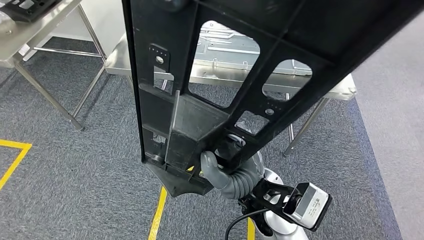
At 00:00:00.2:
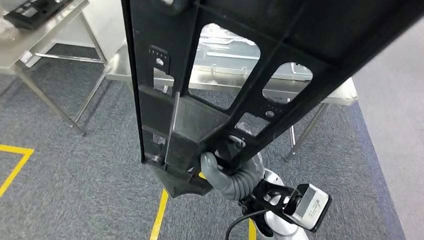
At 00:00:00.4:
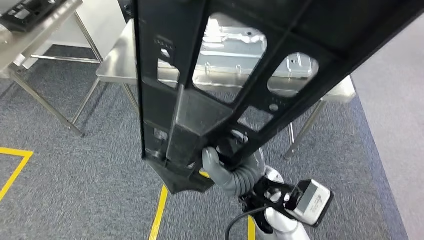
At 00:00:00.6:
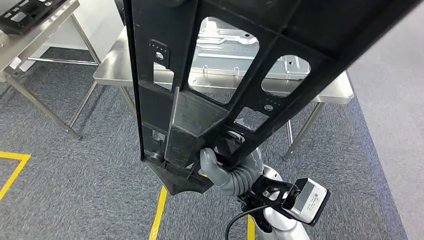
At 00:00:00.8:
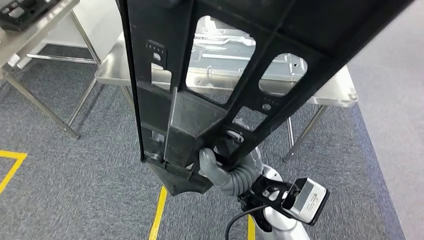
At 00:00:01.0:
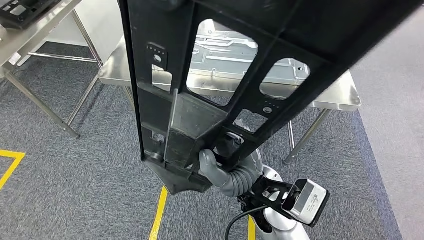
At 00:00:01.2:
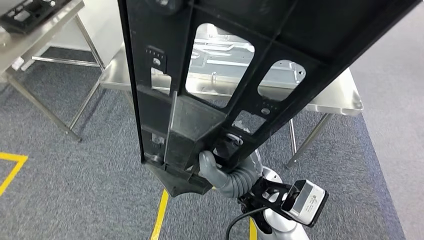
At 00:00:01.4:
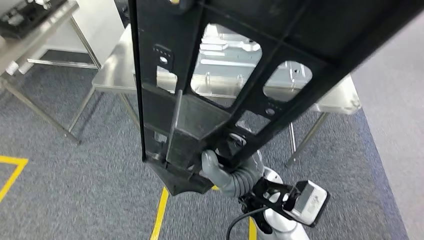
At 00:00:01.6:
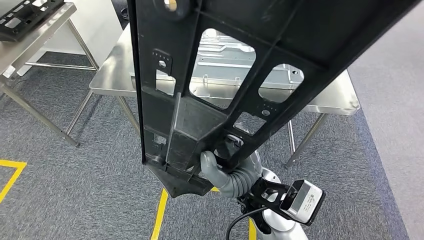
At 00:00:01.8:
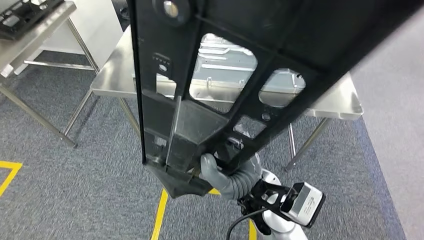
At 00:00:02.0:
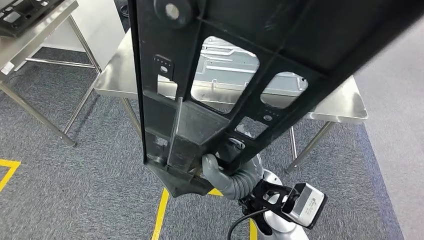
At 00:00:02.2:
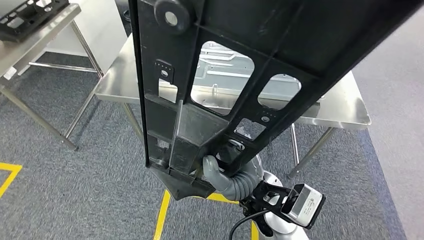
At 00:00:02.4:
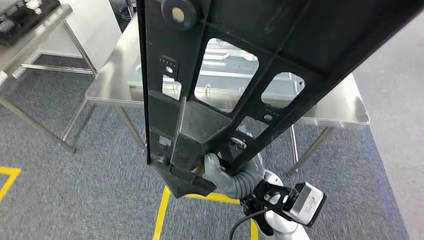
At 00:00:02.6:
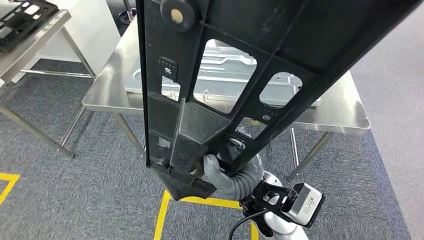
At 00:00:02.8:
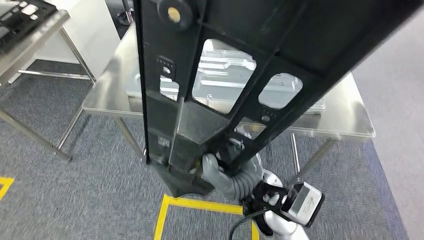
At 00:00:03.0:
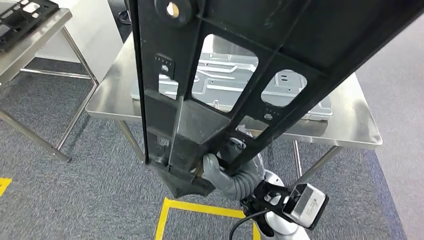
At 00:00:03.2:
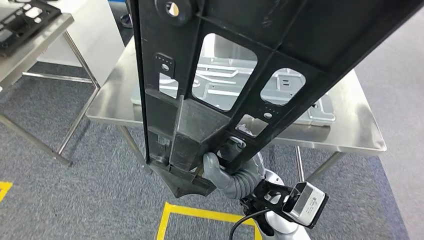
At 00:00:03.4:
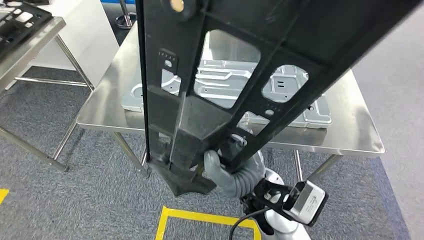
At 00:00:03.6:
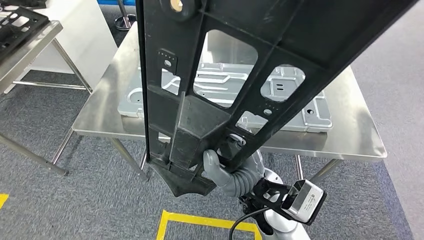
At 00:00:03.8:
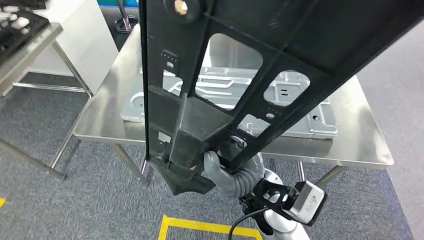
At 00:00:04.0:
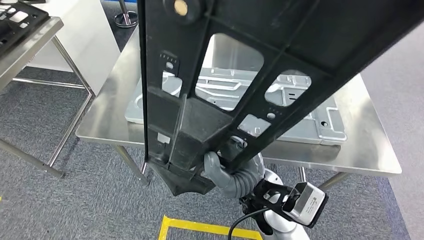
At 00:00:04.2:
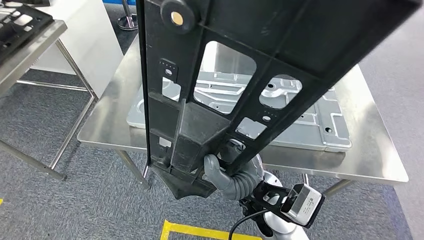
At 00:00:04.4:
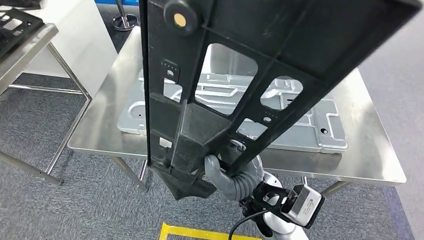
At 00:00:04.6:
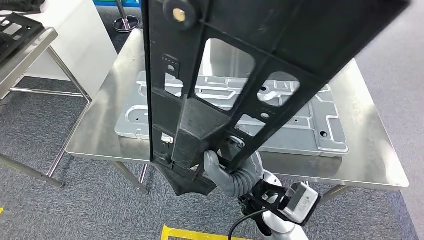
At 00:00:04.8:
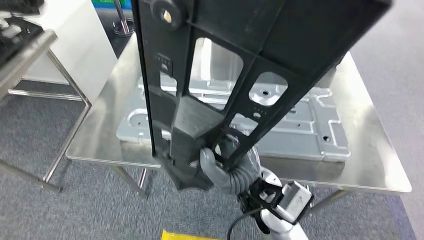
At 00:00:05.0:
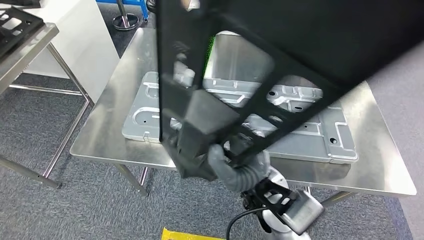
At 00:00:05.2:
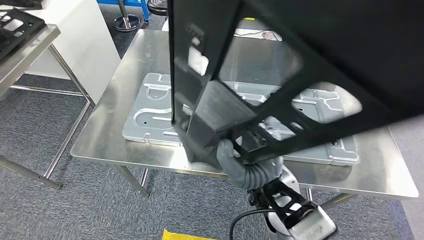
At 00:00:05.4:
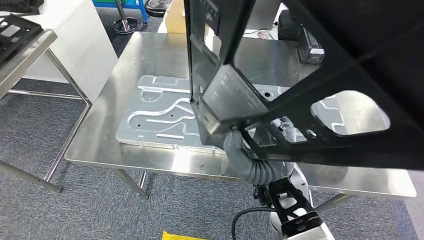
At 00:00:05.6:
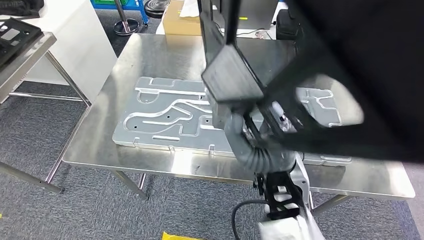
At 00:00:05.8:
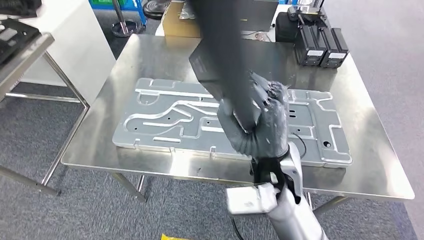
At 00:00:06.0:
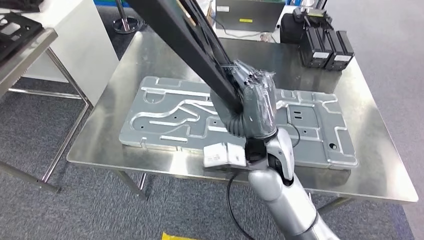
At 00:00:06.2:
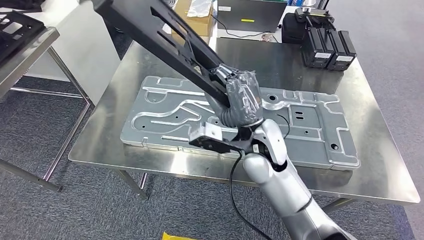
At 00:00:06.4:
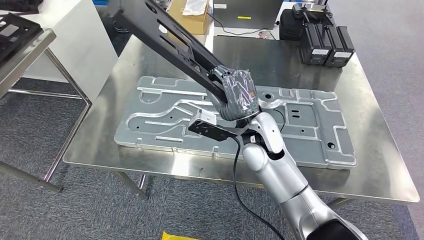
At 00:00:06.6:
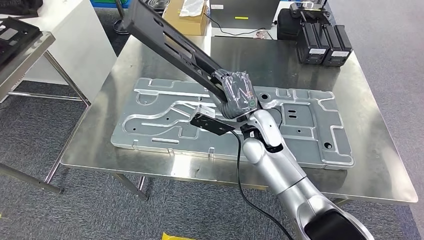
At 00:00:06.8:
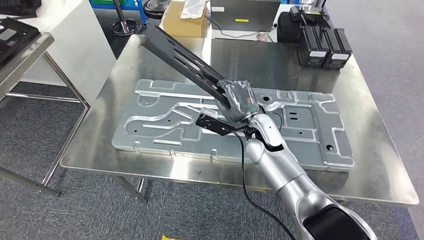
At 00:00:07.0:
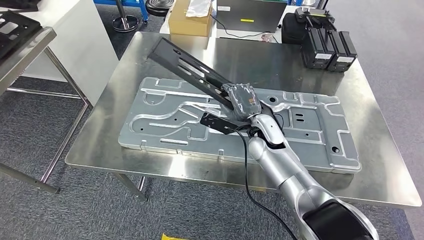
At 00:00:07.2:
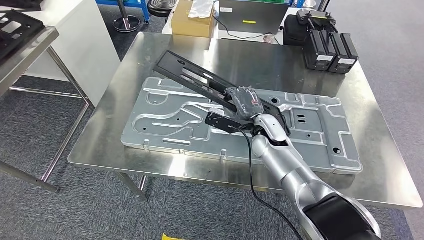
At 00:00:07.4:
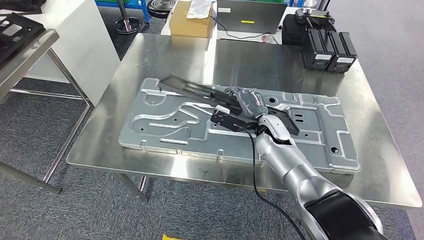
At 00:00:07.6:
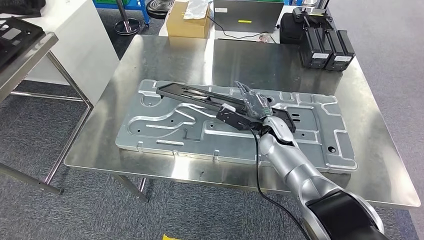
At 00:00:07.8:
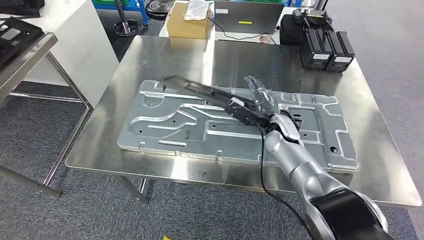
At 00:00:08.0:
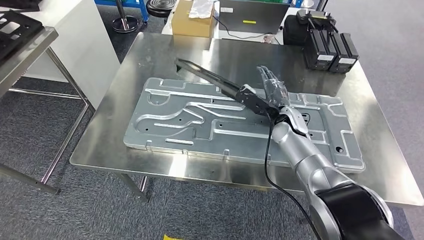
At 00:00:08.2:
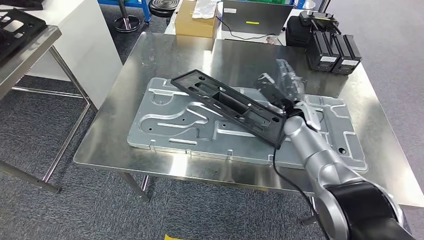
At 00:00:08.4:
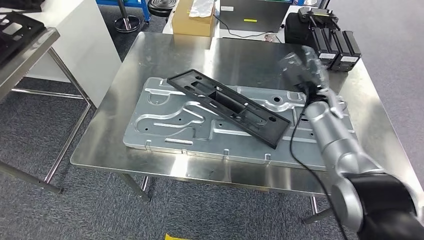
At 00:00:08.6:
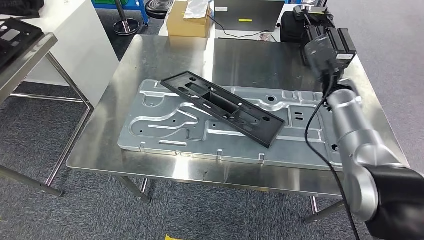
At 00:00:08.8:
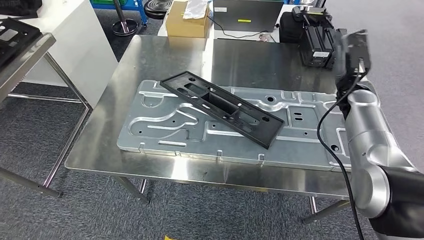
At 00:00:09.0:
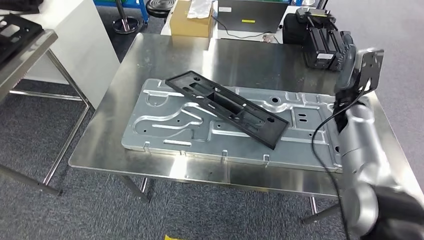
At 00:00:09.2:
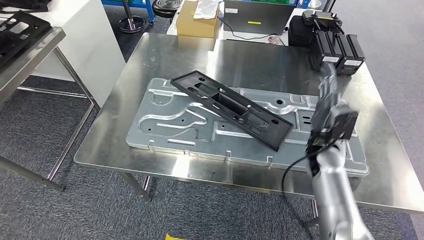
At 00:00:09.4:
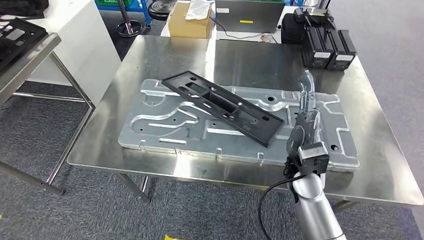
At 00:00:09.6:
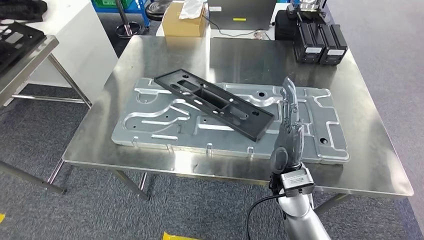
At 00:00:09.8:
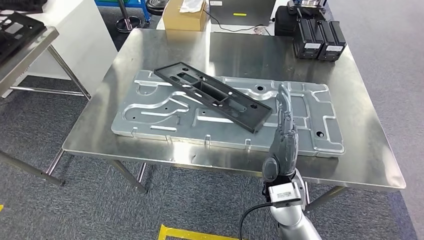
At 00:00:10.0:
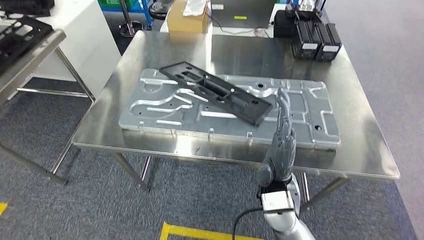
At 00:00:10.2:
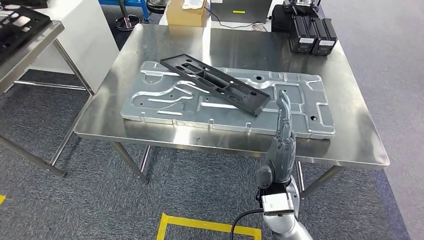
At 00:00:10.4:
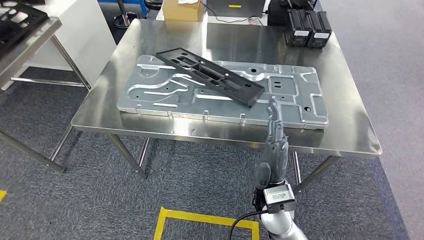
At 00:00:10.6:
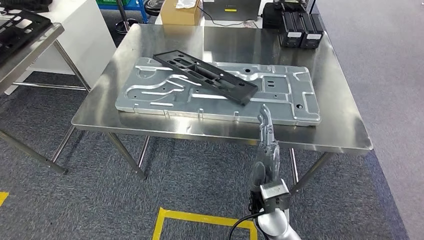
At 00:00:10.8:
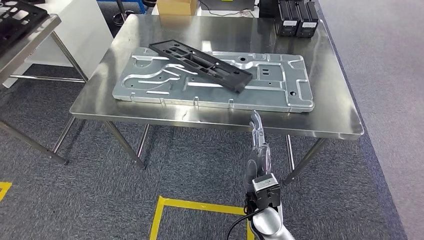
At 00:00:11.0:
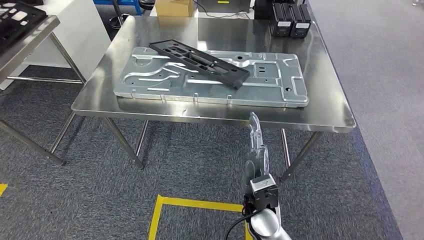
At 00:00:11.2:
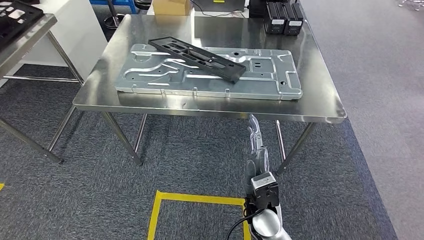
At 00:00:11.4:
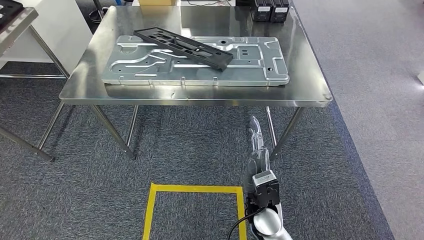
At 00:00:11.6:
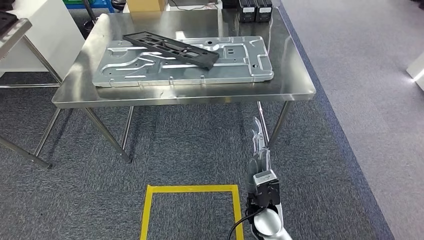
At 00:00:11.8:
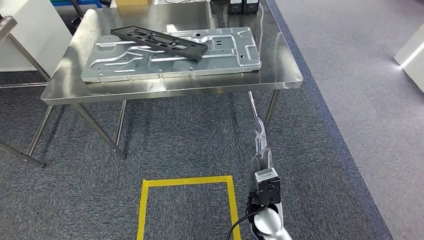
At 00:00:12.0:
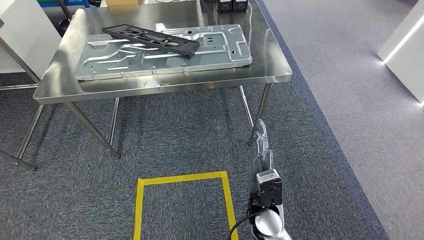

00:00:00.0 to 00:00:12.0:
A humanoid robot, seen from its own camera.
Step, 00:00:00.0 to 00:00:04.2: Move the large material to the workbench.
Step, 00:00:04.6 to 00:00:10.0: Insert the large material into the corresponding slot on the workbench.

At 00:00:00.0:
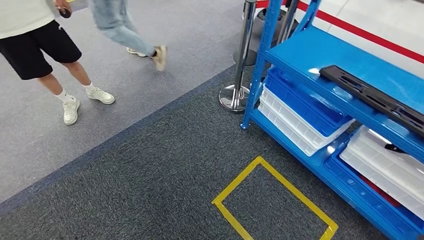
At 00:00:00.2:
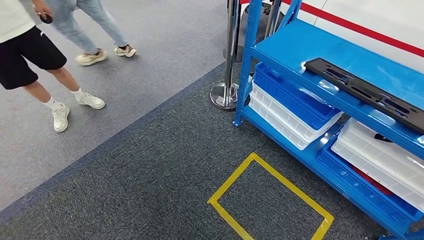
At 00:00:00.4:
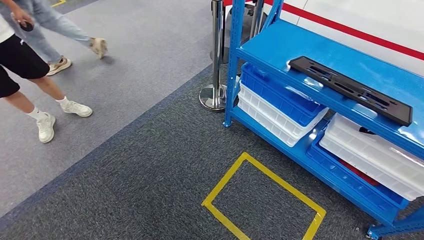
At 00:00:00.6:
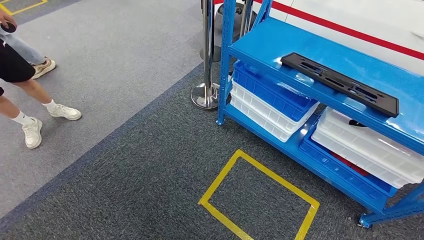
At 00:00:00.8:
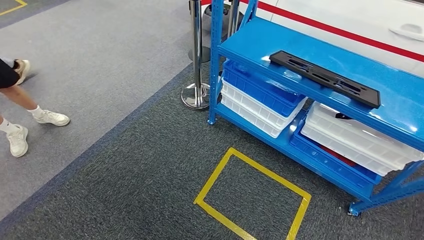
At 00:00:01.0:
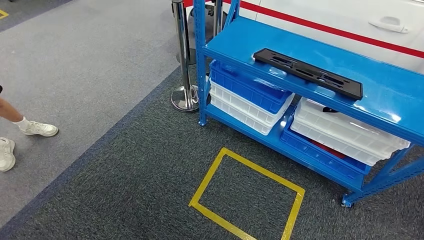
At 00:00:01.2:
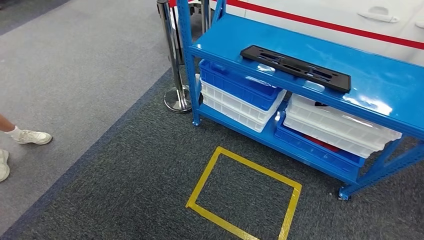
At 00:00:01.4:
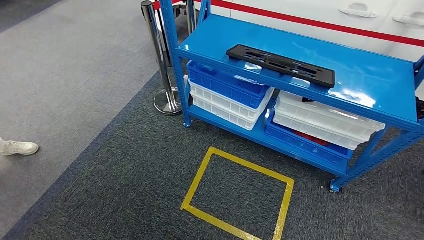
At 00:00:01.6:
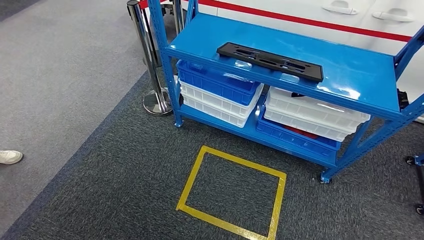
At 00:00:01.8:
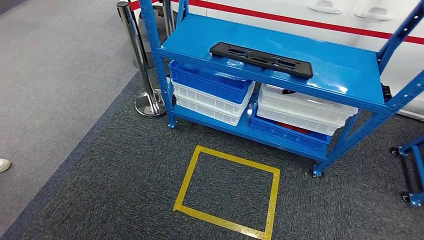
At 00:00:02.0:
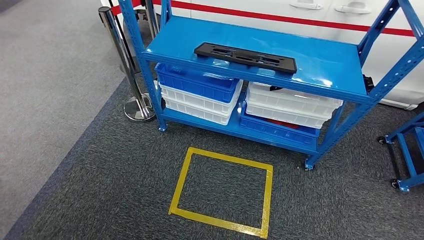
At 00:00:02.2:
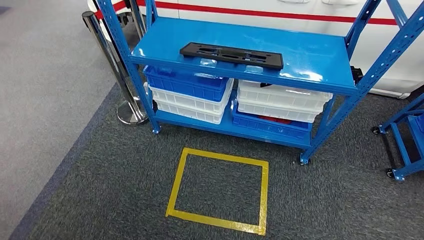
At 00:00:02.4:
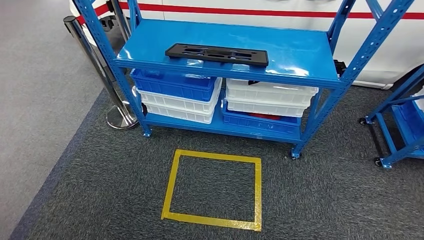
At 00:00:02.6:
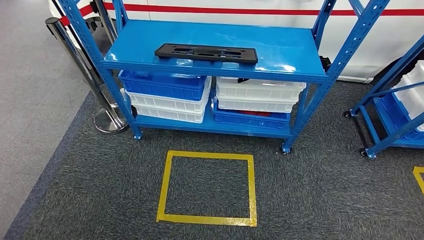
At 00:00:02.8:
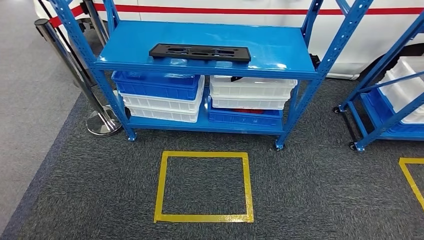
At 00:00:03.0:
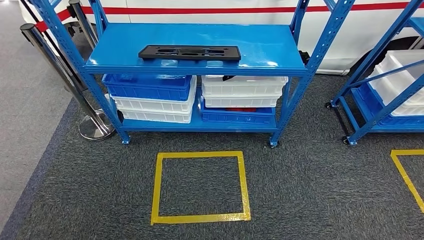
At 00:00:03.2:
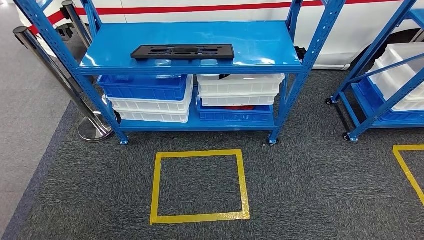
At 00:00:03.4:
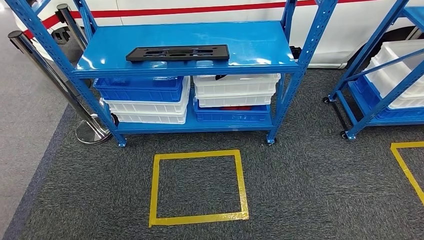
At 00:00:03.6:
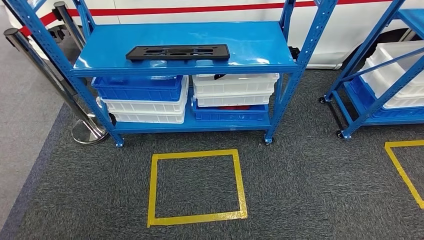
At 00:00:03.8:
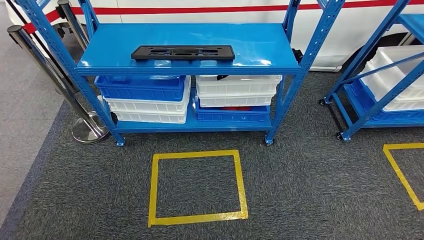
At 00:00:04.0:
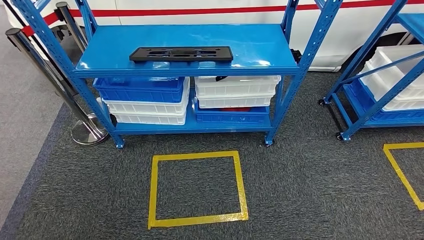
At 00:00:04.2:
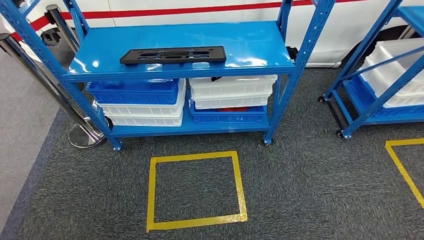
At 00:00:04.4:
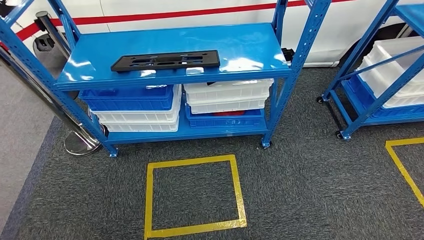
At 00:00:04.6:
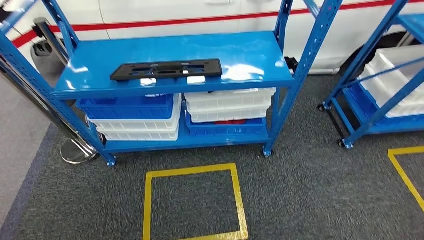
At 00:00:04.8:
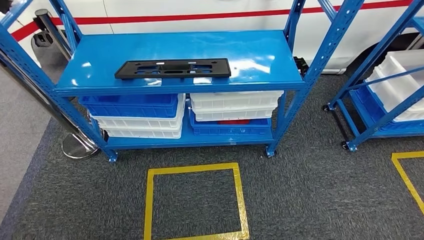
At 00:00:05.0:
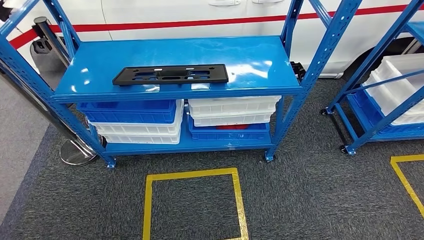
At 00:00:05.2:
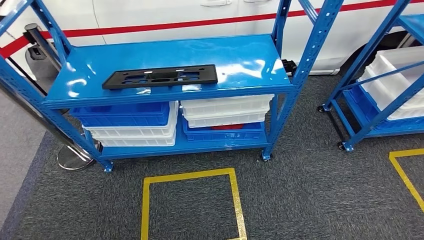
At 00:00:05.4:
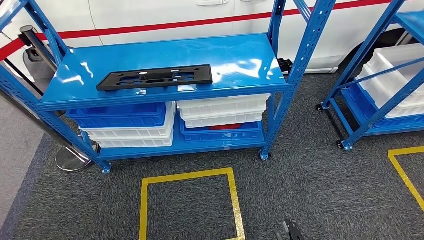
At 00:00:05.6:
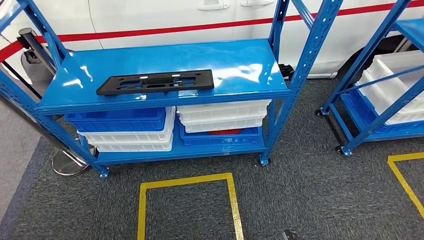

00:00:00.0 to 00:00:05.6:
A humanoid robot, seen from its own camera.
Step, 00:00:00.0 to 00:00:05.6: Return to the initial position at the shelf.
